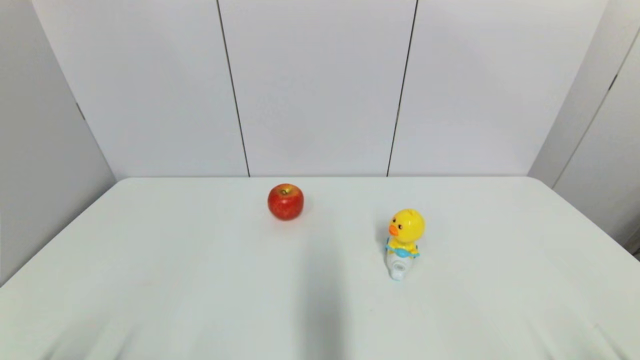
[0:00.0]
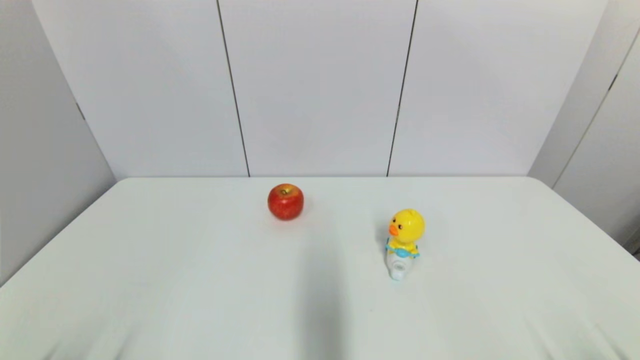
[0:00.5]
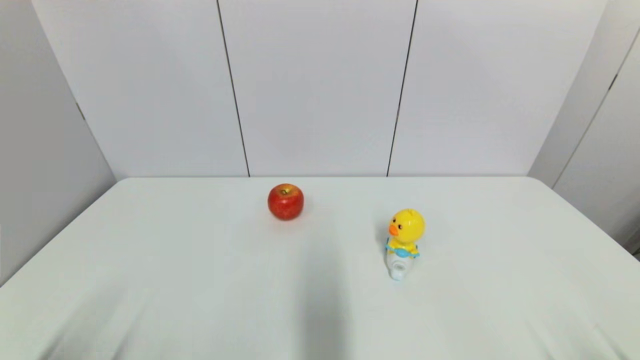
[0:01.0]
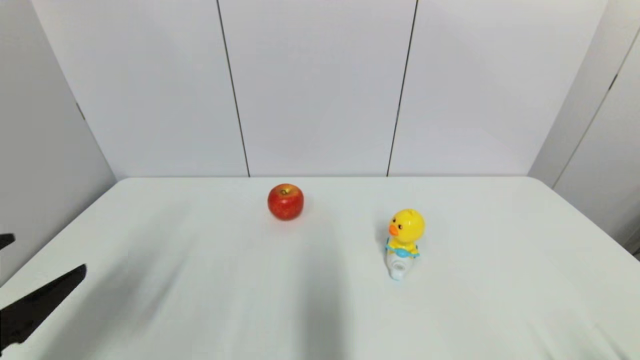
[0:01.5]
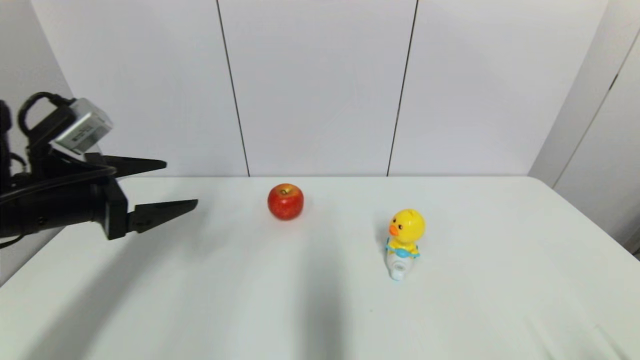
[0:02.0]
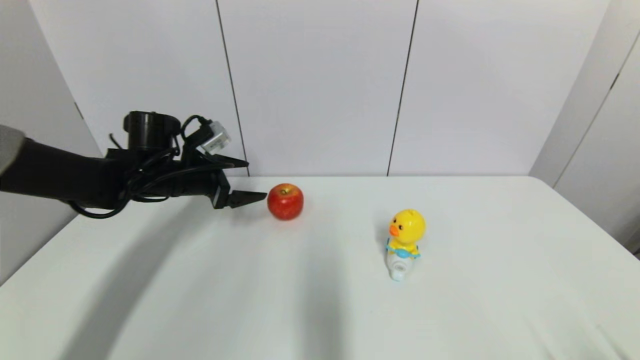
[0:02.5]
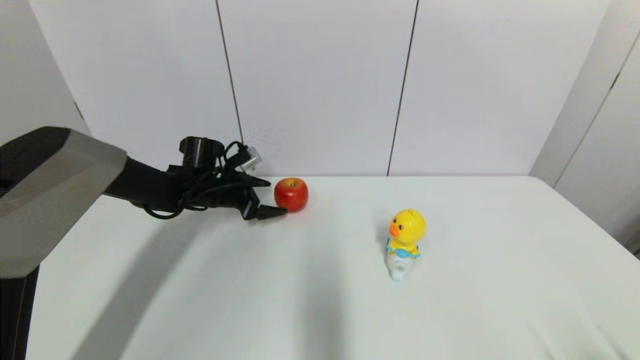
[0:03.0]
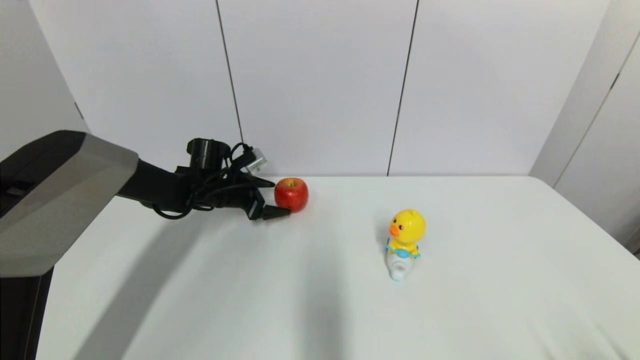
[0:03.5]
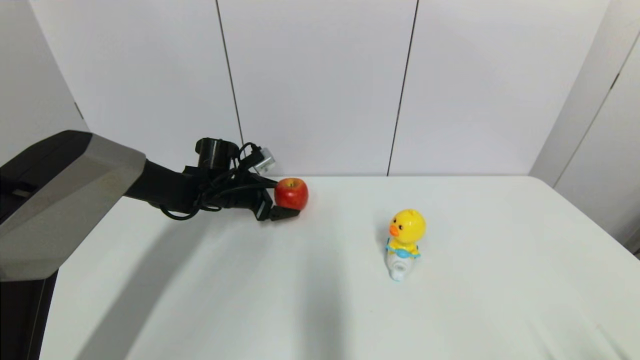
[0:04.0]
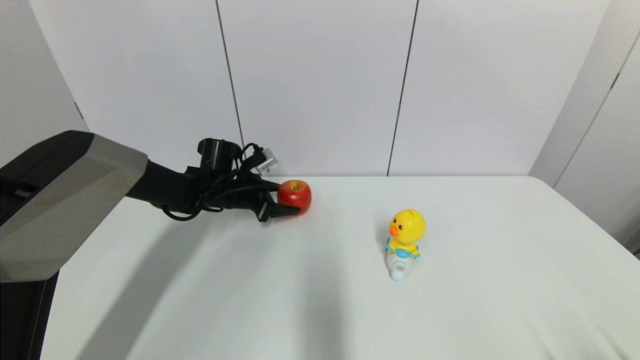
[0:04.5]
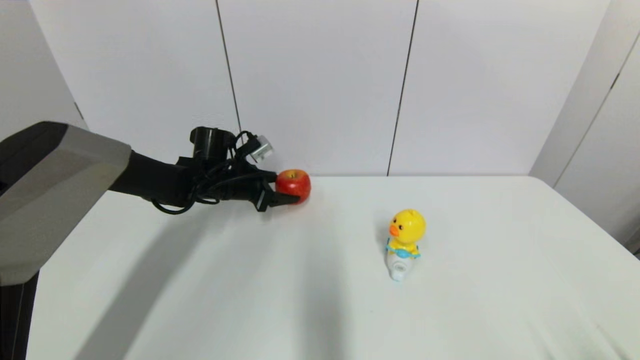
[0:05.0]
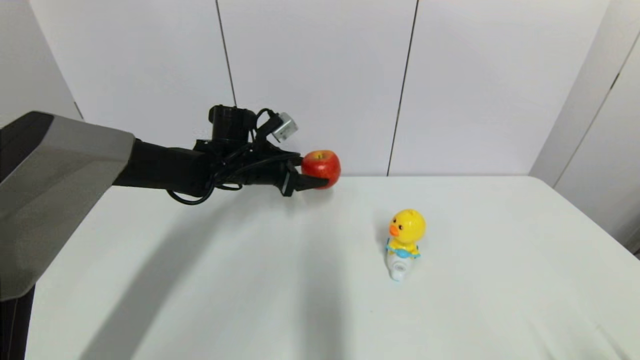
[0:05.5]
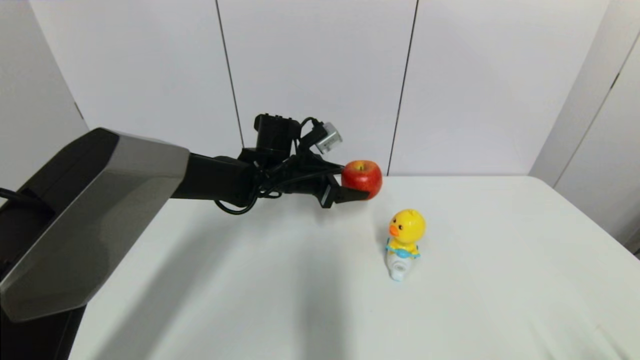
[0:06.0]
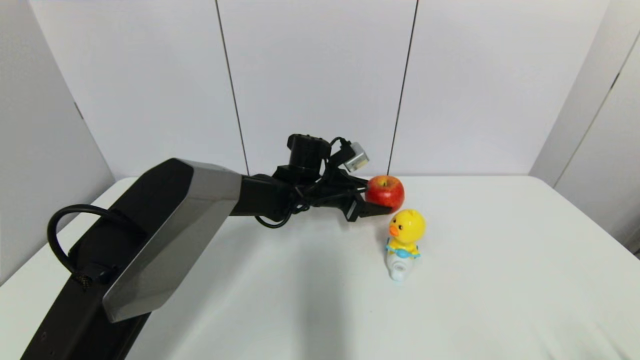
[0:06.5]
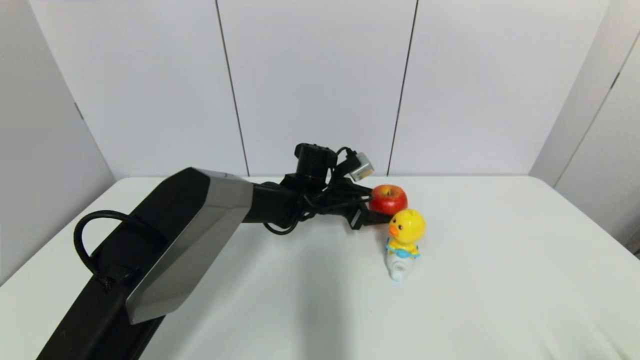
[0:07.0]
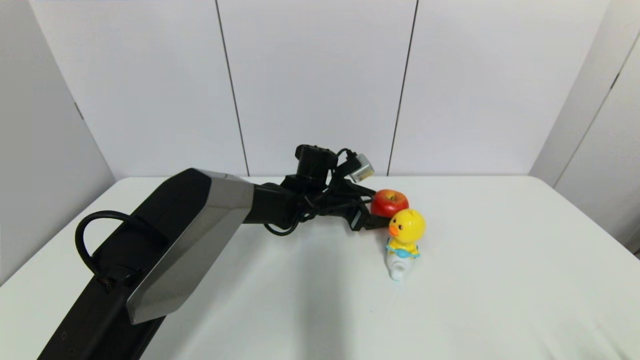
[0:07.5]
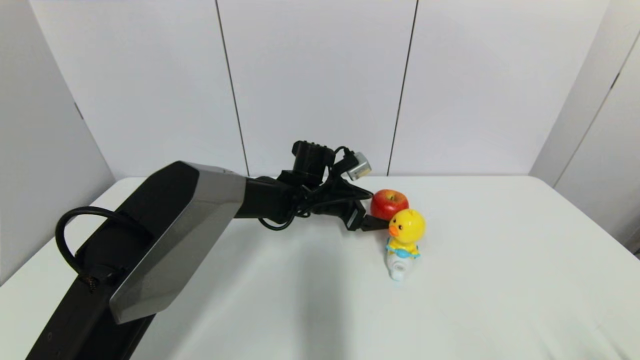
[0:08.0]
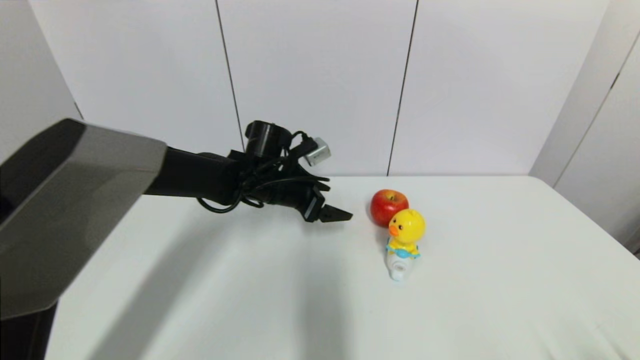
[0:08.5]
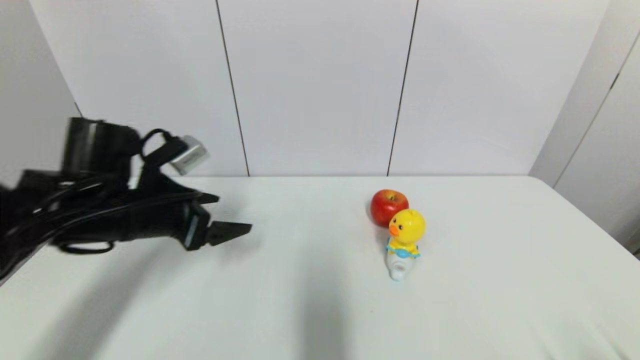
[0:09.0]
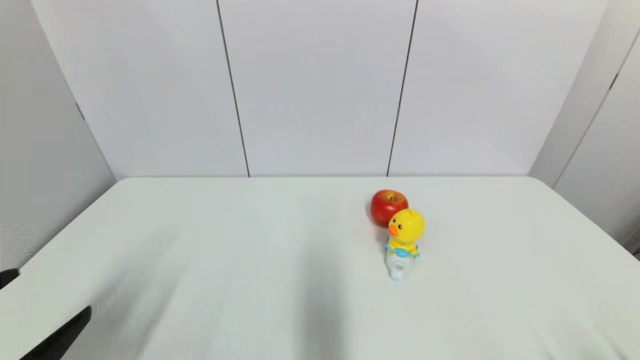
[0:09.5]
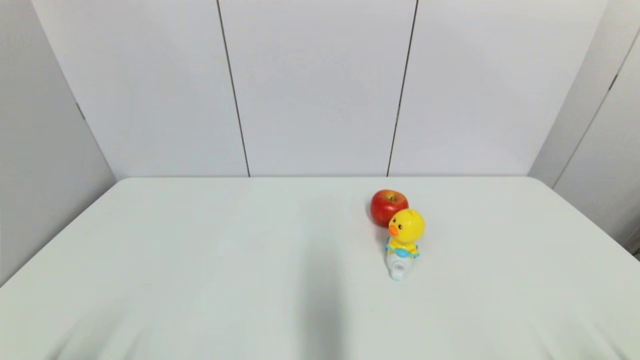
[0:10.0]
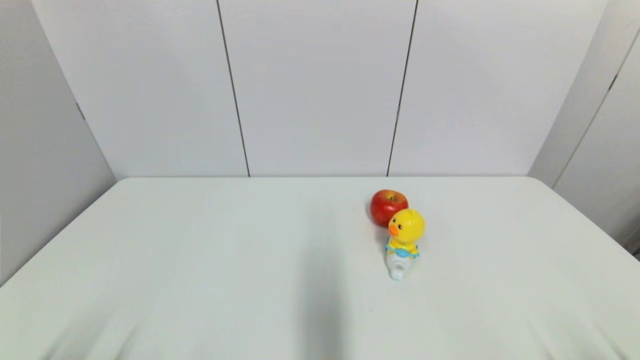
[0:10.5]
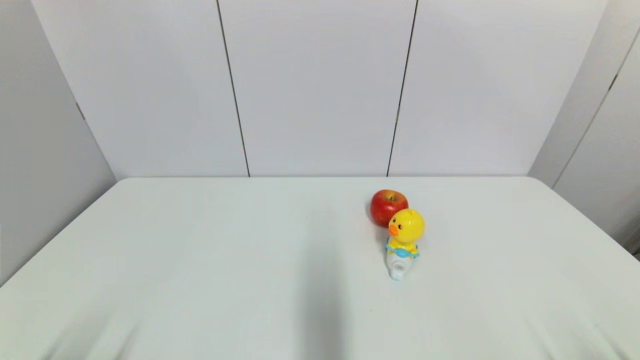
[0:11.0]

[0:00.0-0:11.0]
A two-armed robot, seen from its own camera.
Task of the whole recording: put the apple in the designated position.
Step, 0:01.5 to 0:04.0: Grasp the apple with left gripper.
Step, 0:04.5 to 0:08.0: Place the apple on the table with left gripper.
0:00.0 to 0:02.0: The left gripper goes about 30 cm forward and upward.
0:02.0 to 0:03.5: The left gripper moves forward, downward and to the right, some 25 cm.
0:03.5 to 0:05.5: The left gripper is displaced to the right and upward by about 10 cm, and closes up.
0:05.5 to 0:07.5: The left gripper shifts about 15 cm to the right and downward, and opens.
0:07.5 to 0:09.0: The left gripper goes about 30 cm to the left, backward and upward, and opens.
0:09.0 to 0:11.0: The left gripper is displaced backward and downward by some 30 cm.
